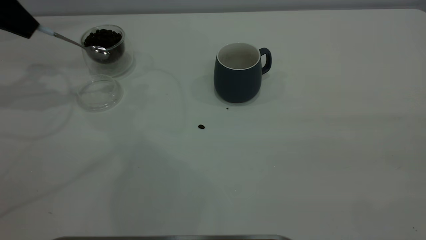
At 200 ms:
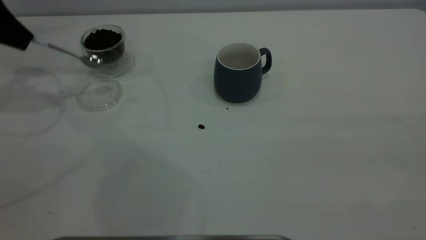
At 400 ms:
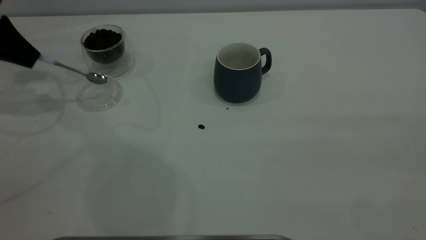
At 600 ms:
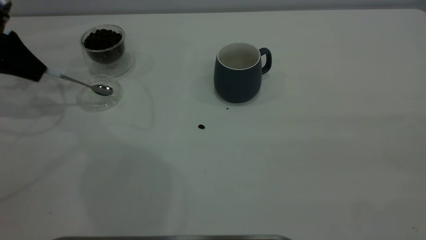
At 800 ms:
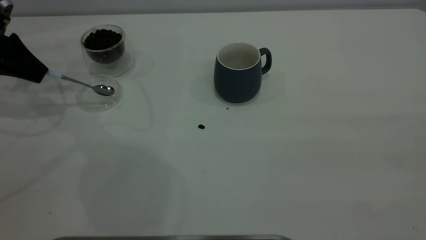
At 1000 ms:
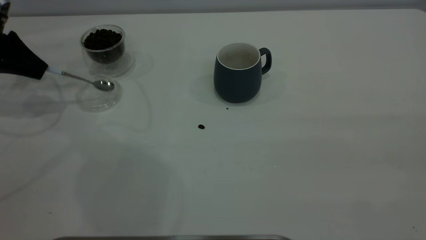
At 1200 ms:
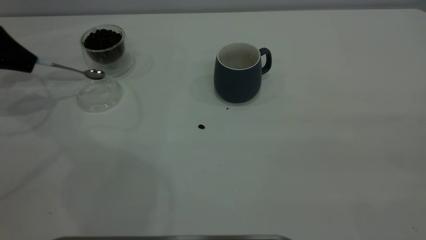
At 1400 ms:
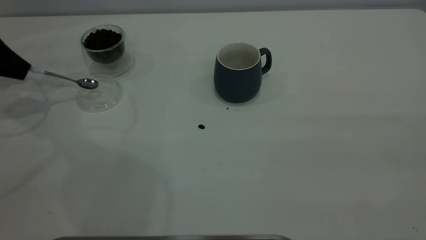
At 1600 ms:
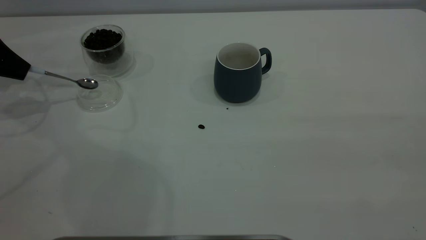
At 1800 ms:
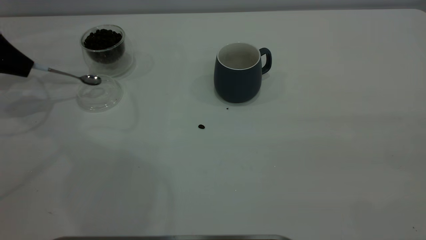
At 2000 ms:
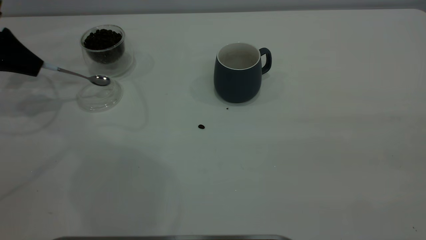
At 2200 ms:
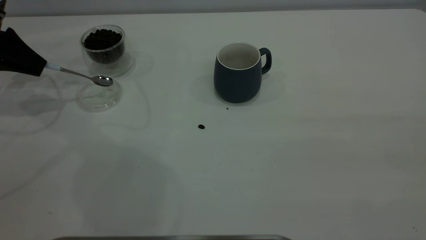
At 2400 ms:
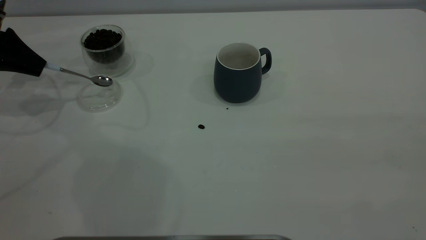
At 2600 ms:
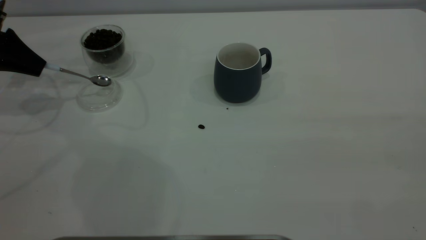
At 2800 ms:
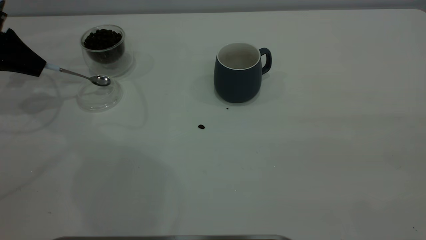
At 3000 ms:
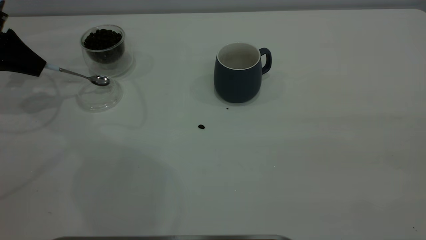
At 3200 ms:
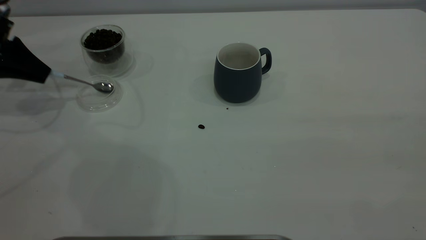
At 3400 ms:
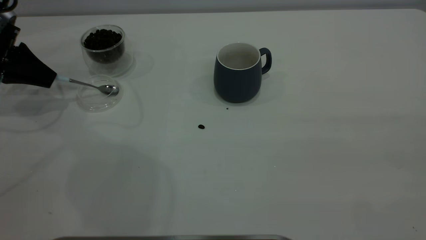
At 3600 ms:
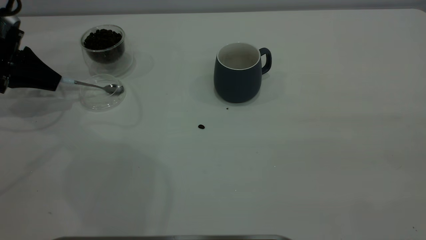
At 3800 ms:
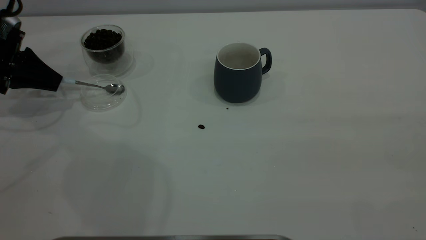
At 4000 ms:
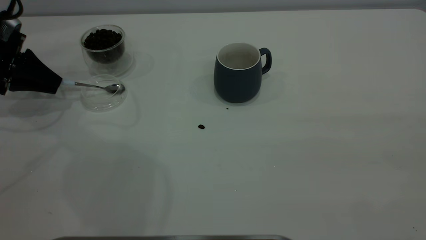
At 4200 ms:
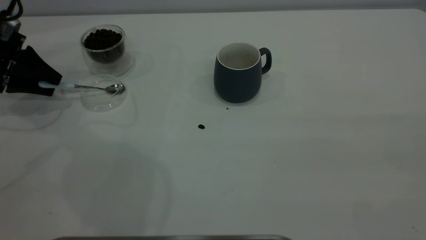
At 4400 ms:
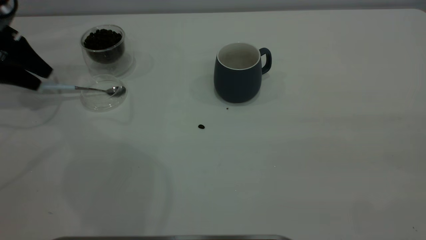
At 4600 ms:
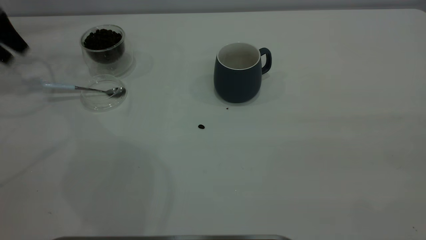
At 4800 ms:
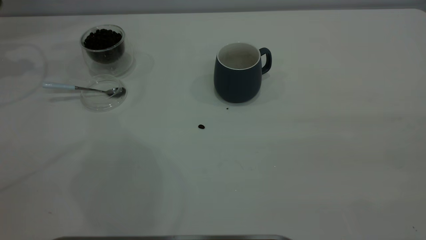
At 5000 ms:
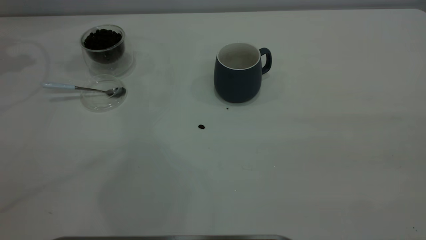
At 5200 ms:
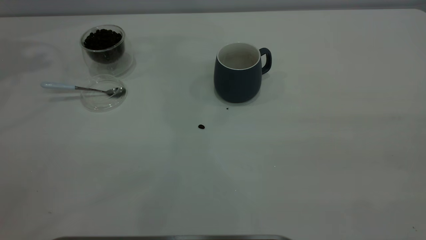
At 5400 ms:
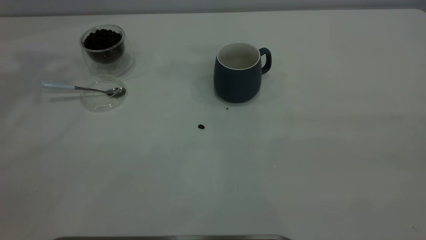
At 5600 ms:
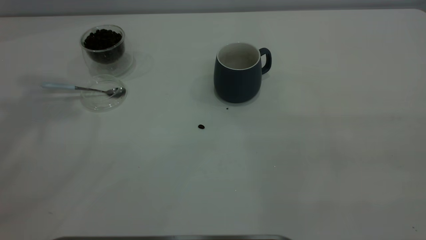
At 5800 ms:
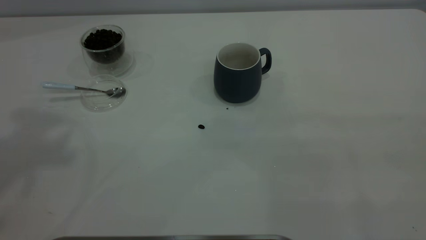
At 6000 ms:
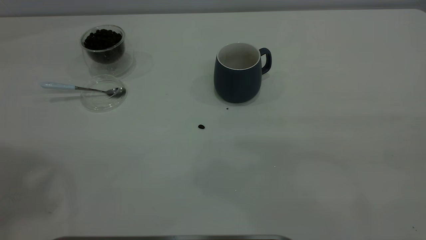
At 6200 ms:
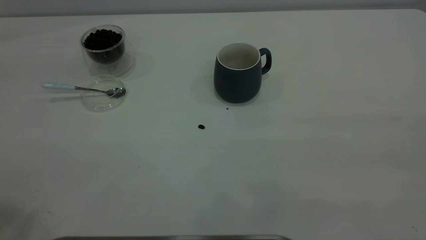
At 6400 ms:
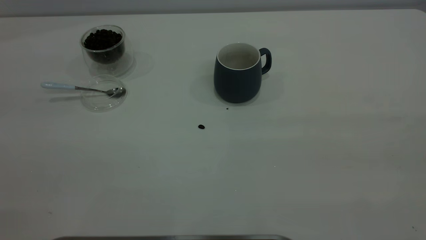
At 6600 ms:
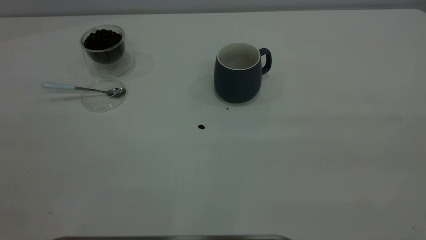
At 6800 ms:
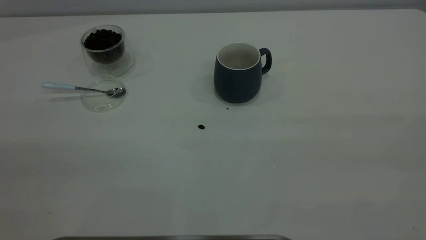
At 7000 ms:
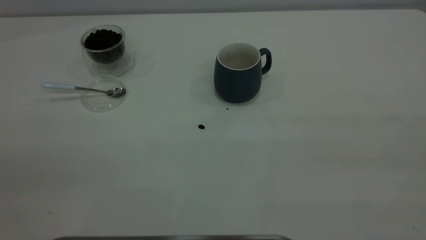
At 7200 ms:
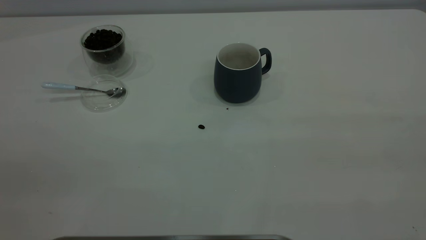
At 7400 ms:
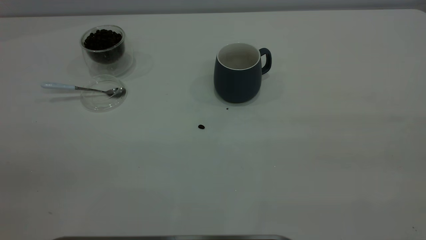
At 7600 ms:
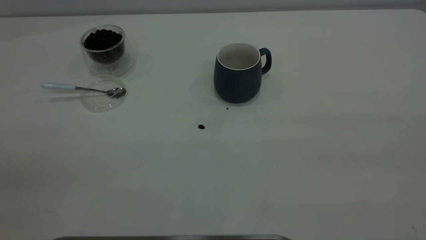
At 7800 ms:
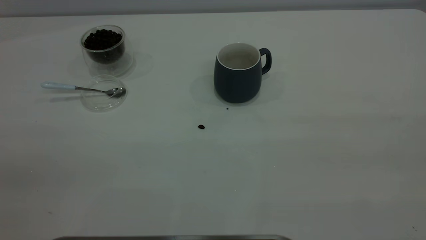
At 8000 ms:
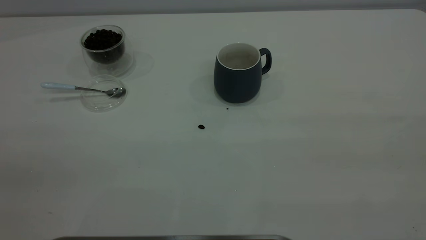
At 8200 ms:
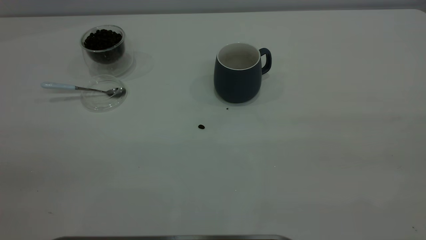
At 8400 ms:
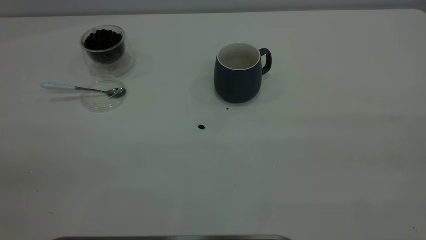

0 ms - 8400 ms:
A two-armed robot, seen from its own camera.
Task of the whole recording: the right gripper place the grey cup in the center of the table, the left gripper take the blue spoon from the cup lid and scoop out the coffee beans from the coffee cup and put them into the grey cup, the left gripper put the spoon back into the cup lid.
Step, 0 ms - 4600 ms: Place the spoon back in its original place.
0 ms - 1400 ms: The left gripper goes some 10 cm downward and to the left.
1400 ms - 2800 ms: There are only small adjustments of the grippers.
2800 ms - 4200 ms: The left gripper opens its fingers.
4200 ms - 5600 ms: The left gripper moves upward, approximately 40 cm.
